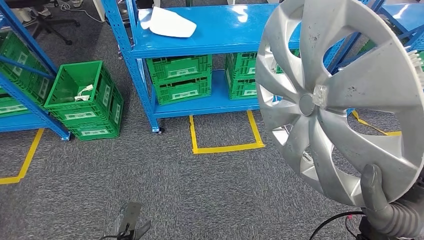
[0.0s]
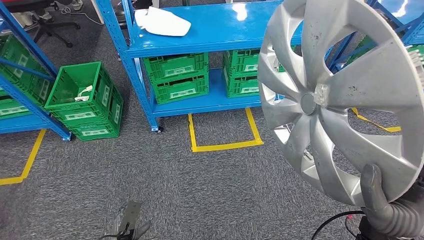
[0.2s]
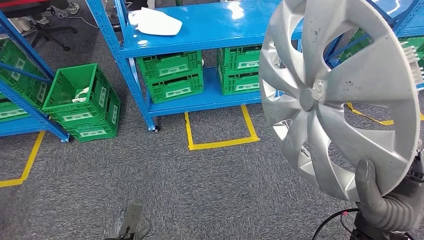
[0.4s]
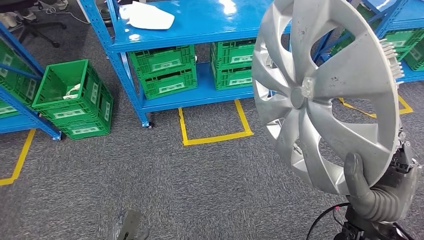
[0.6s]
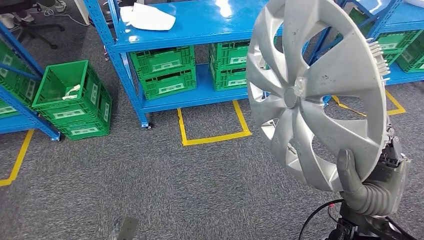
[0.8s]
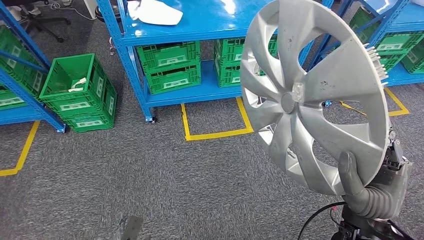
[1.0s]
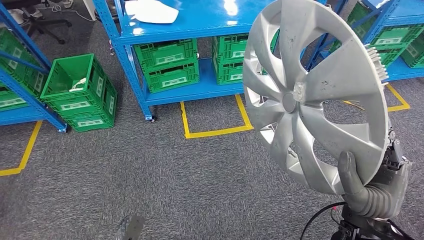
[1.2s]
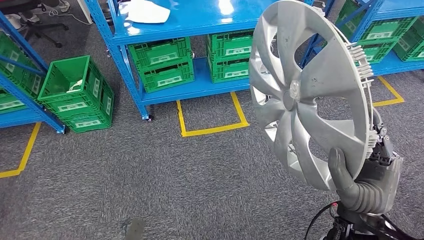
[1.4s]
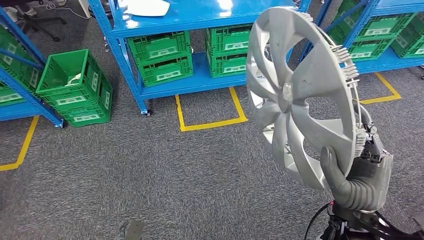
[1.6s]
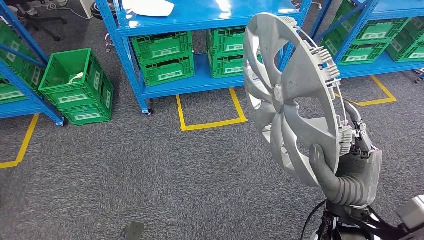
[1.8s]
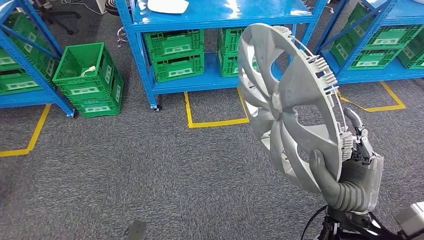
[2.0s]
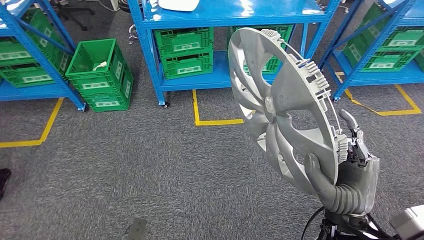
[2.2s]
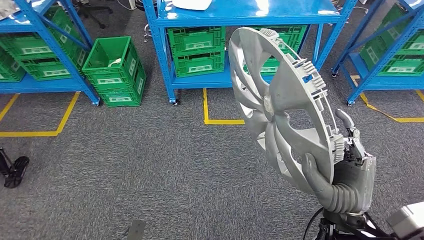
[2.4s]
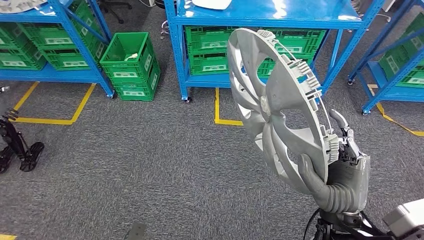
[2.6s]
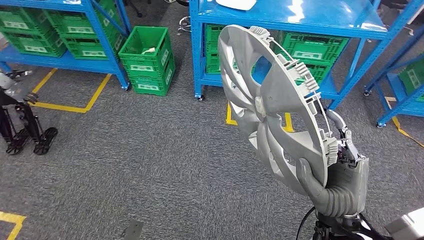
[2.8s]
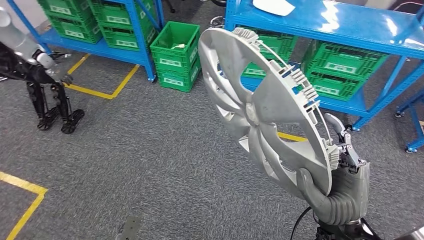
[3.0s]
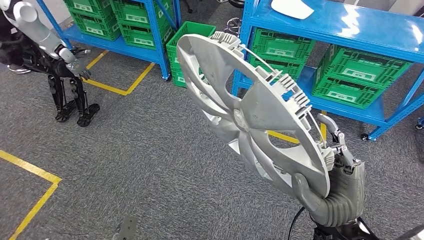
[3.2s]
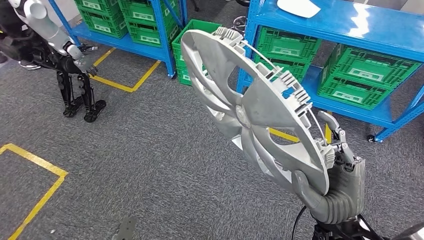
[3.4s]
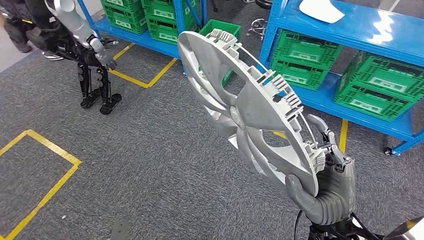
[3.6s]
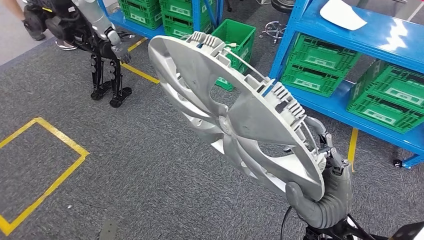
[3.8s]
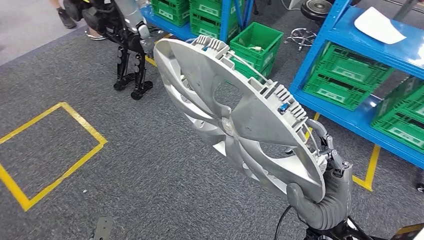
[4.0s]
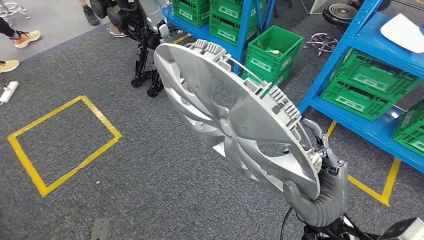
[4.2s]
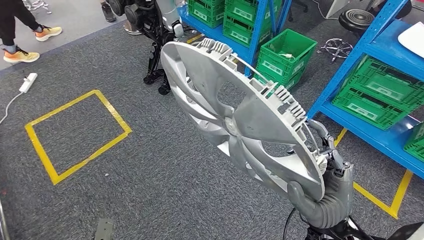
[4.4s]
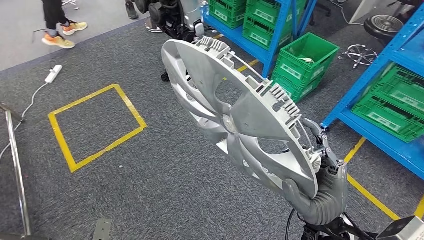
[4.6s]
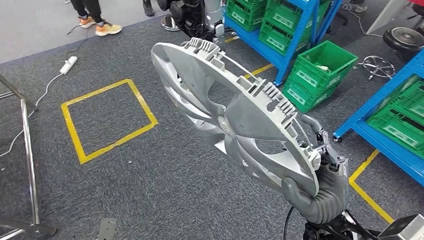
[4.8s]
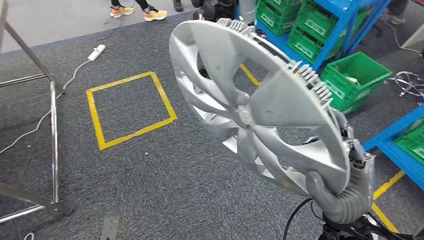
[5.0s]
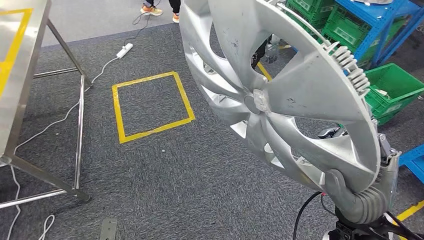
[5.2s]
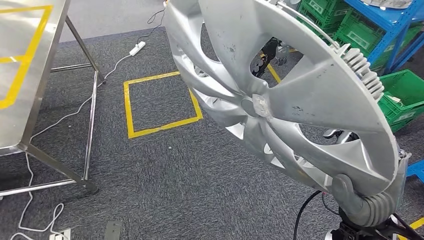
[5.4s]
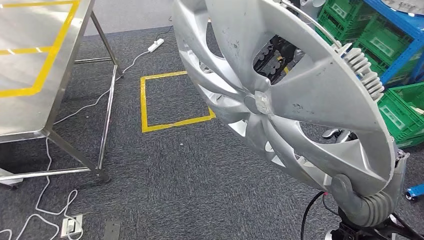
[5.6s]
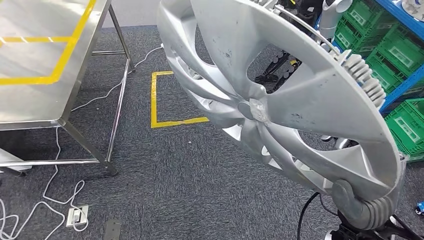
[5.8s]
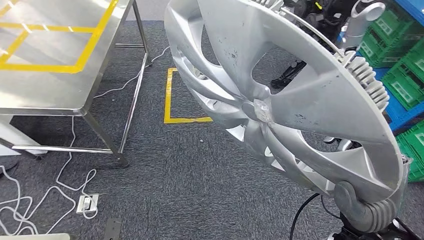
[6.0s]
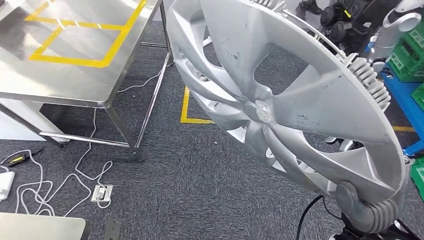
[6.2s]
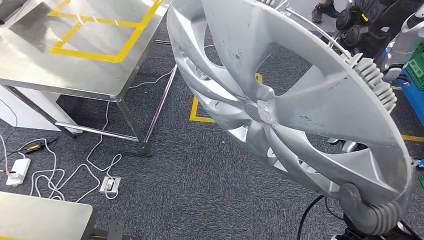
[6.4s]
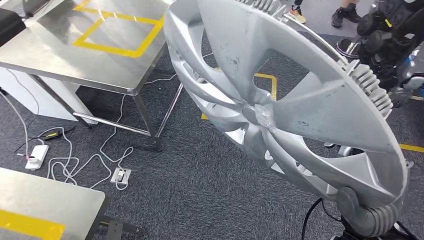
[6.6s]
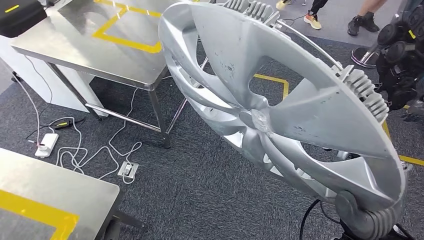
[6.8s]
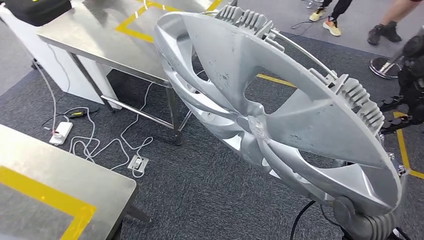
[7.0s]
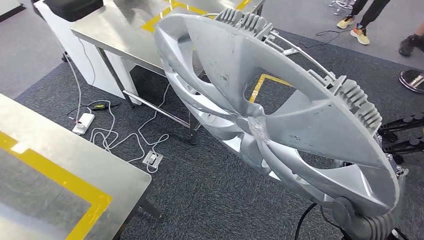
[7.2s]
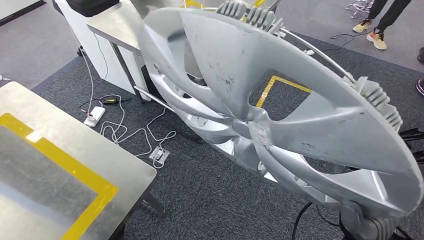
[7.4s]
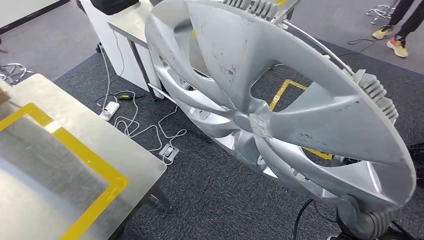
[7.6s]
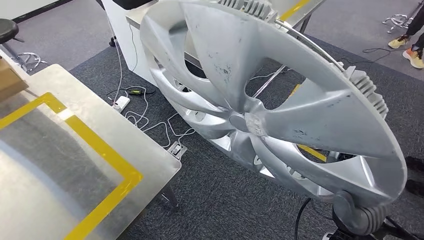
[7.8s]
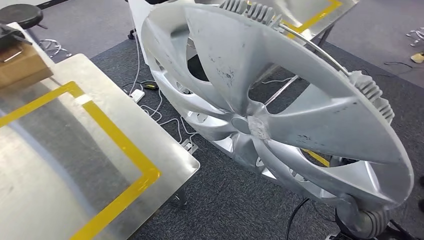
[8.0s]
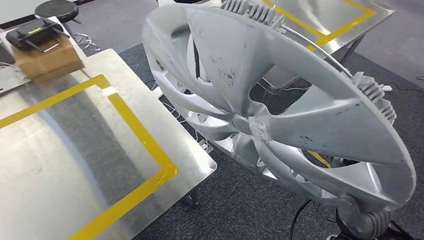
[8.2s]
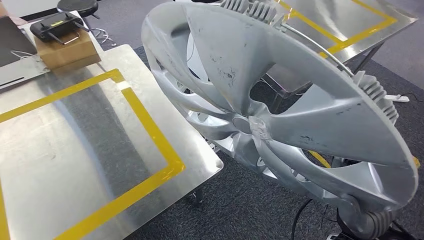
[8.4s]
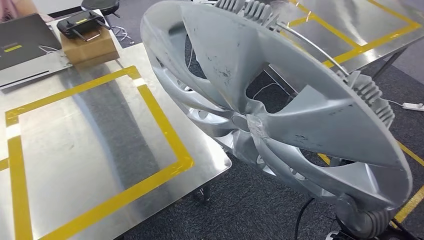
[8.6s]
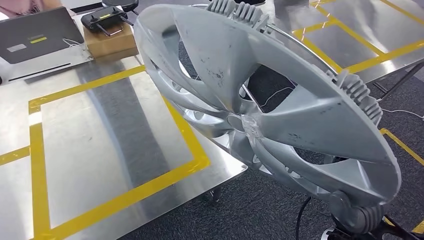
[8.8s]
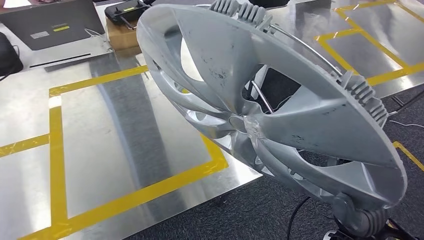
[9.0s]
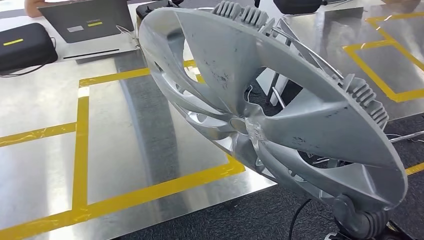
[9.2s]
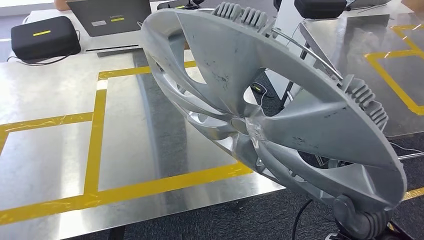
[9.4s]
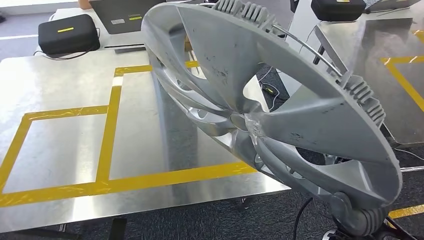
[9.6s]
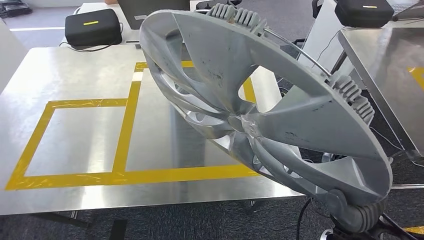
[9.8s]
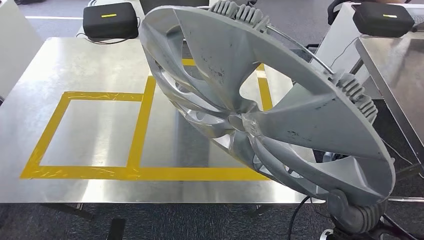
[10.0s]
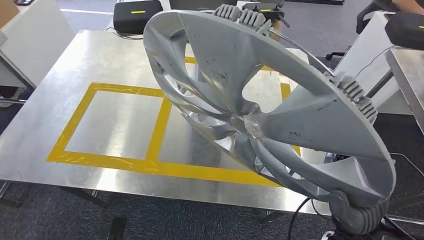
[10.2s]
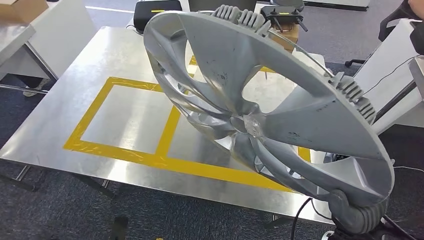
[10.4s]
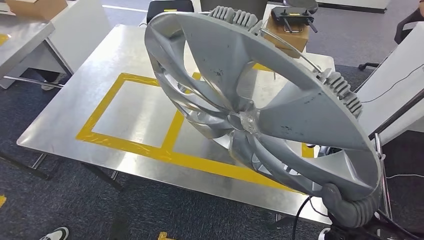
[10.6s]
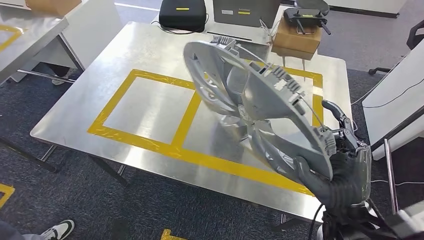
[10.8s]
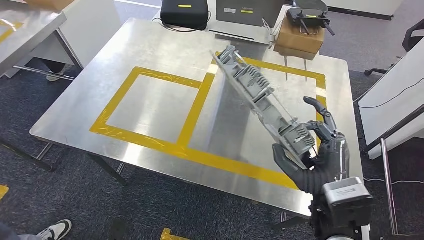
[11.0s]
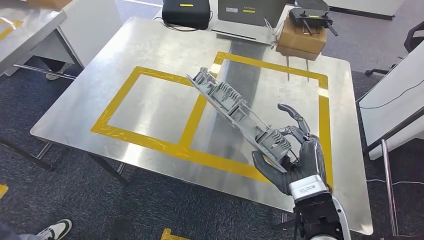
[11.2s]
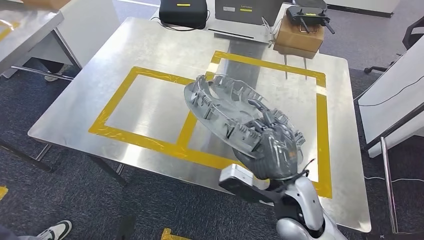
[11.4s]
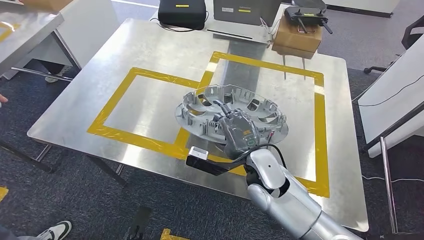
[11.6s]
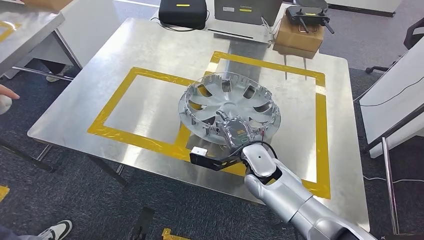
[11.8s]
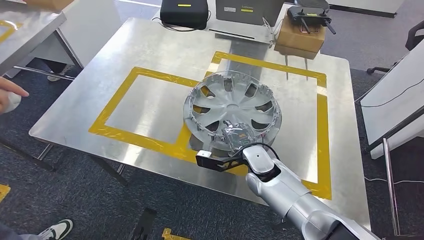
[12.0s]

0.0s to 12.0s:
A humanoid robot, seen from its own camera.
Step, 0.0s to 10.4s: Move the small component to the workbench.

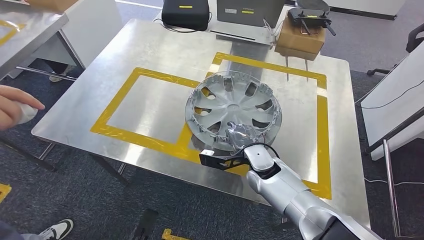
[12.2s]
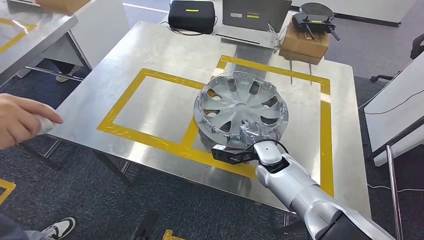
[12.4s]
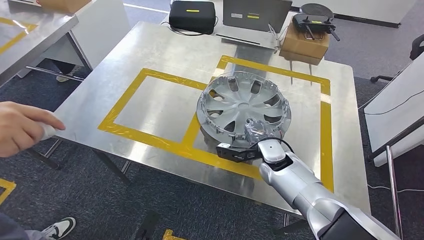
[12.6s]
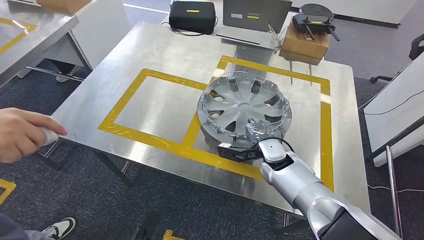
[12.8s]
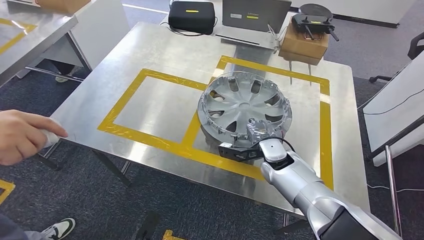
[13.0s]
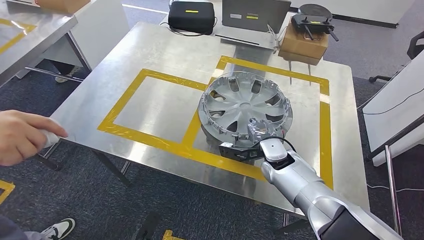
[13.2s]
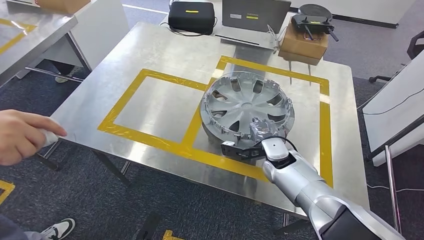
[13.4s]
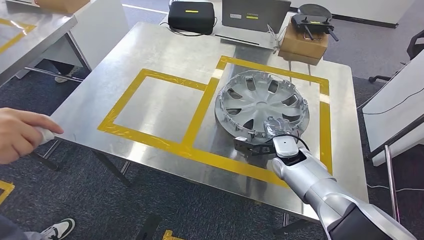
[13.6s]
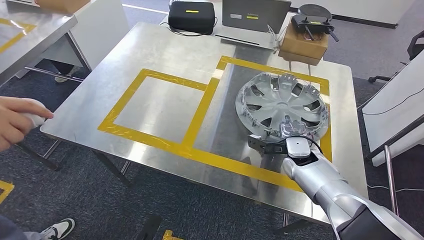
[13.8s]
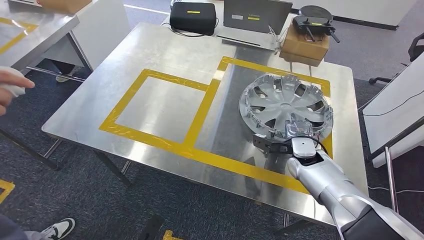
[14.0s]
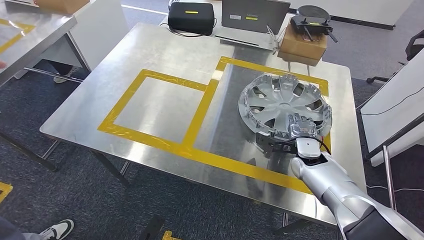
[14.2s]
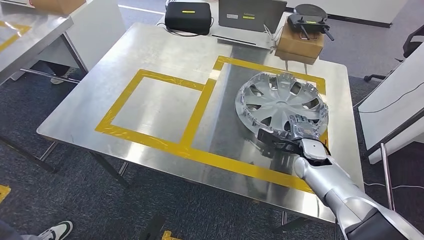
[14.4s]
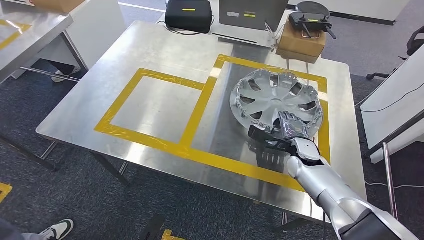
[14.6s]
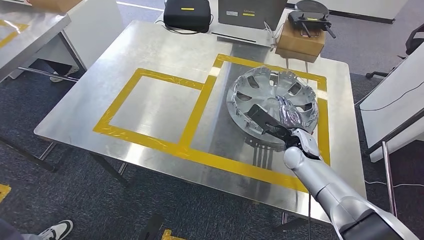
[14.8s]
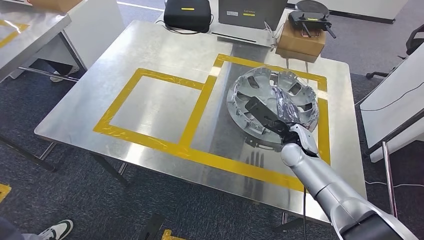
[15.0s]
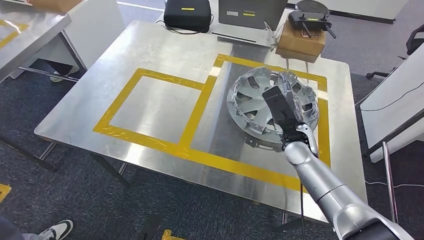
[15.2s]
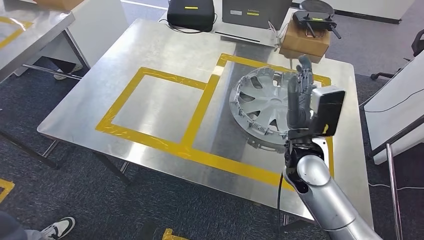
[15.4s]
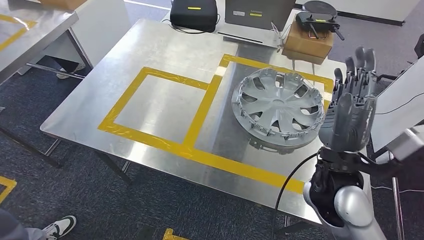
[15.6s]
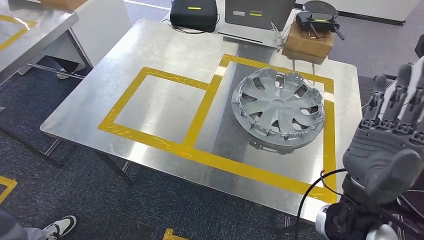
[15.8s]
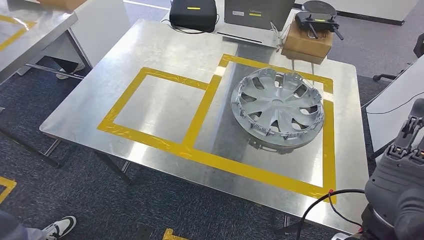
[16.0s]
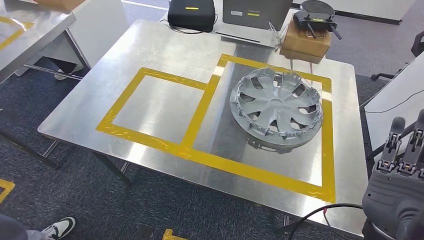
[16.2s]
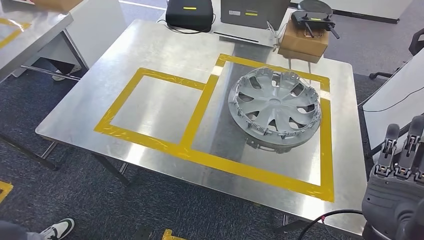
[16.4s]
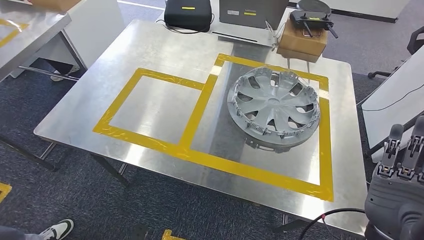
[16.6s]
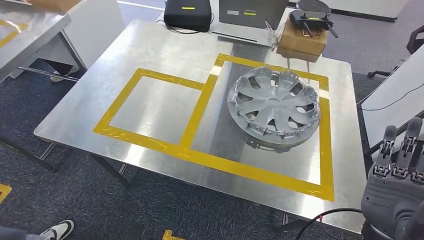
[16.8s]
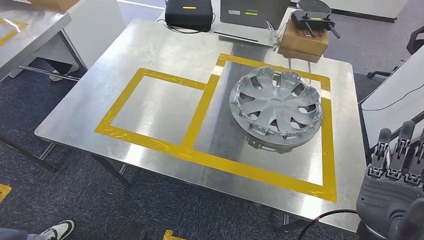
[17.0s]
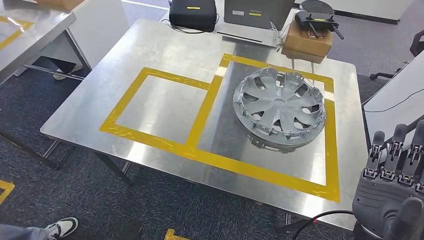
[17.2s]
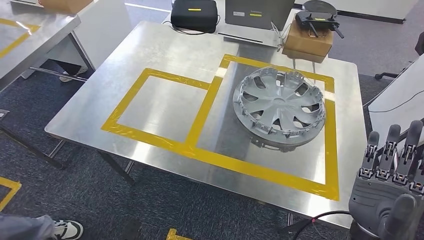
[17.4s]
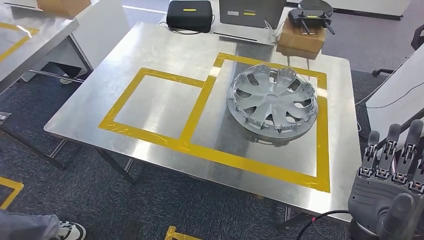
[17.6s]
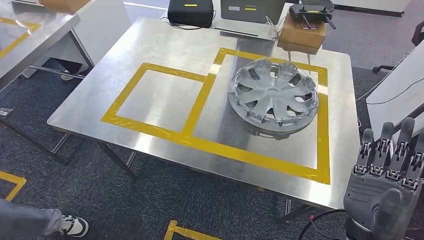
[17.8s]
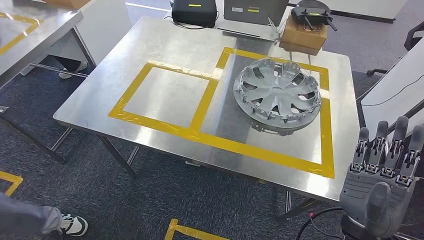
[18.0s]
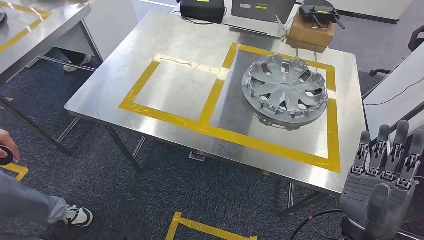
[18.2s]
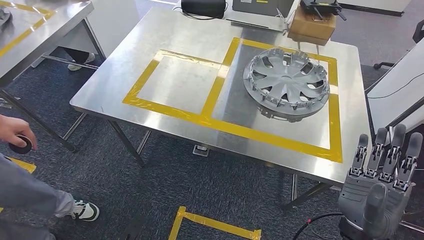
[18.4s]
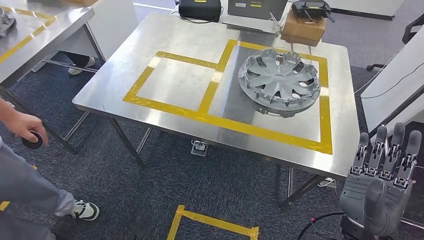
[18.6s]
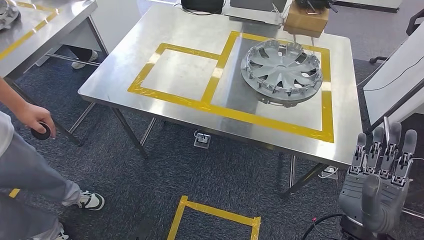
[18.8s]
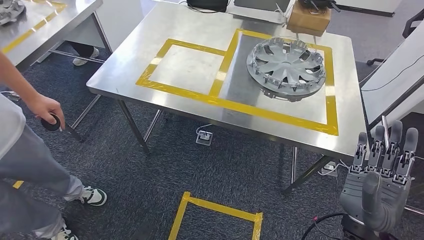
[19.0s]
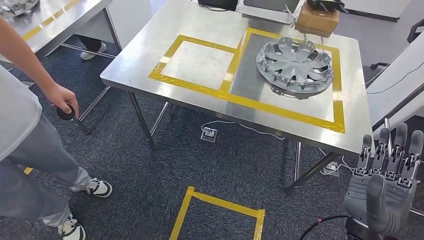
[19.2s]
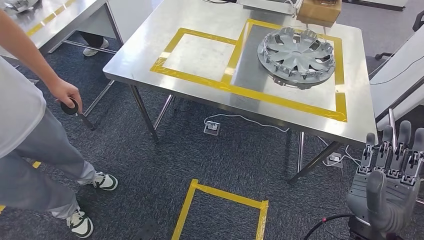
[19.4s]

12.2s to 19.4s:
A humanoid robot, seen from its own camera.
Step, 12.2s to 19.2s: Insert the small component into the corresponding slot on the workbench.
15.0s to 16.6s: The right hand moves backward, roughly 25 cm.
